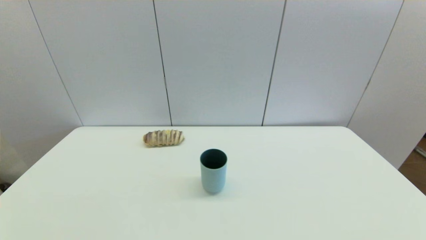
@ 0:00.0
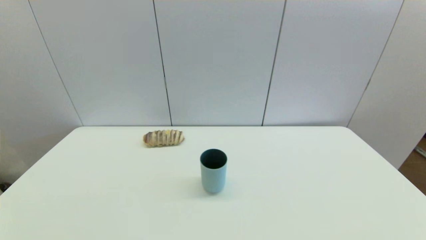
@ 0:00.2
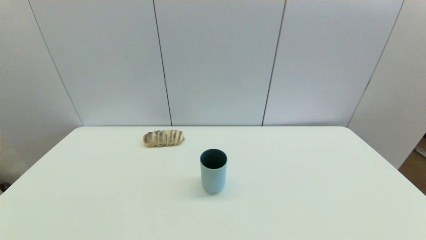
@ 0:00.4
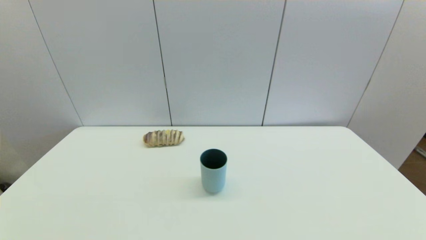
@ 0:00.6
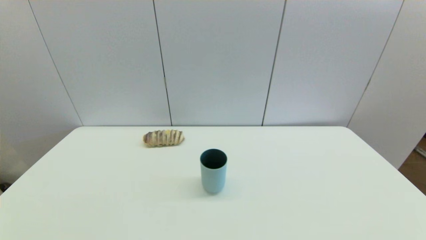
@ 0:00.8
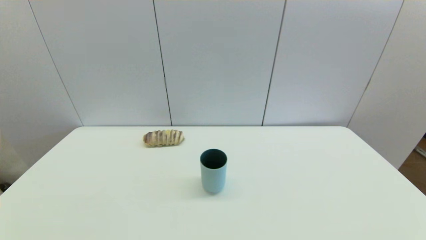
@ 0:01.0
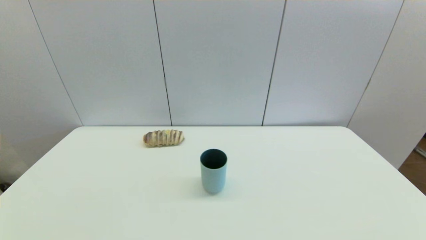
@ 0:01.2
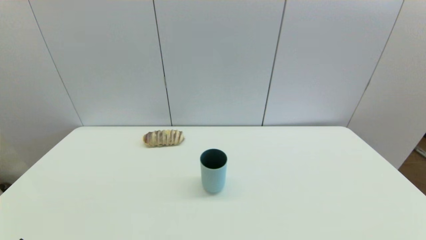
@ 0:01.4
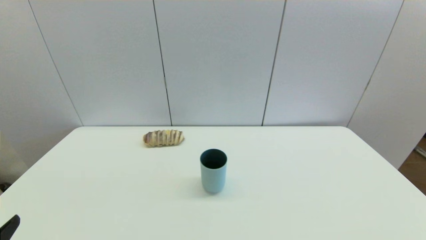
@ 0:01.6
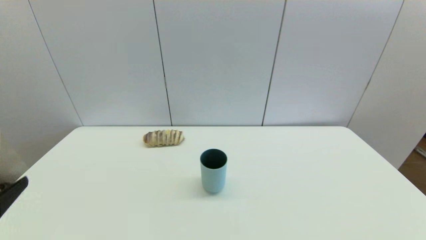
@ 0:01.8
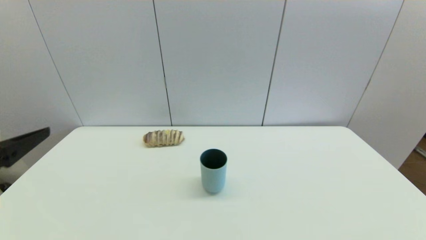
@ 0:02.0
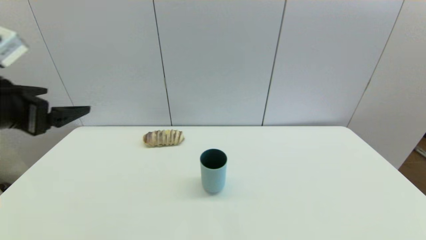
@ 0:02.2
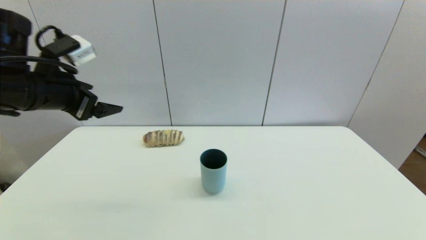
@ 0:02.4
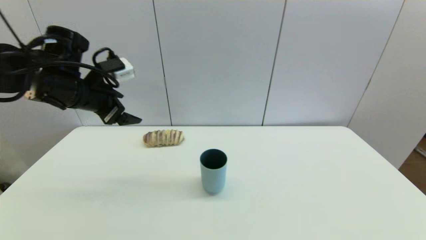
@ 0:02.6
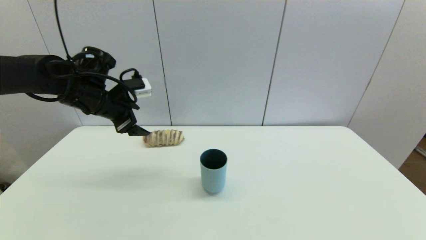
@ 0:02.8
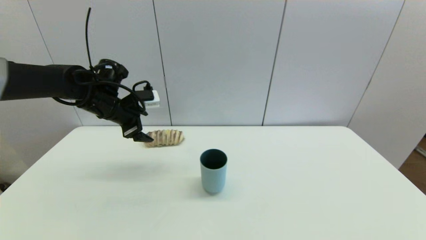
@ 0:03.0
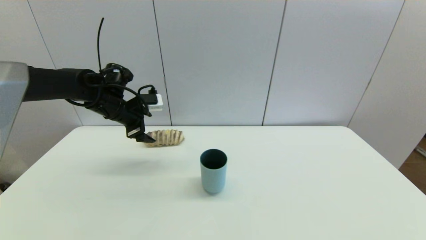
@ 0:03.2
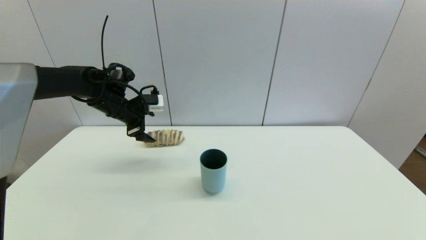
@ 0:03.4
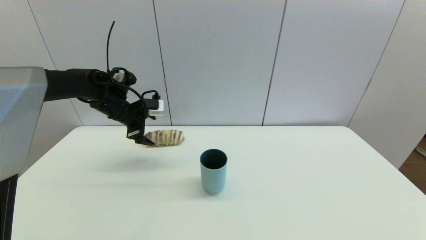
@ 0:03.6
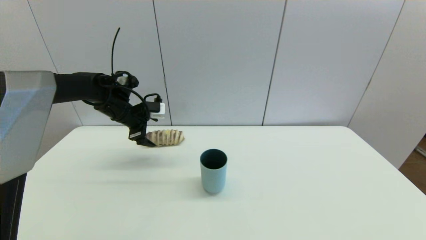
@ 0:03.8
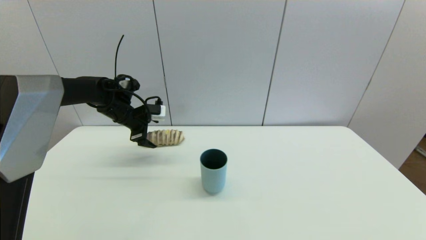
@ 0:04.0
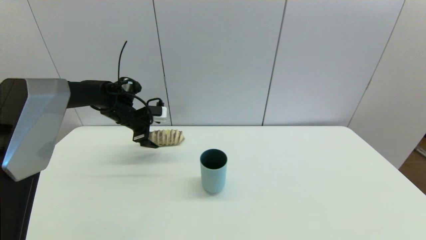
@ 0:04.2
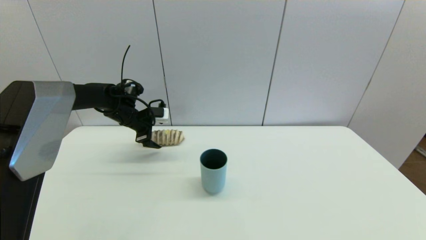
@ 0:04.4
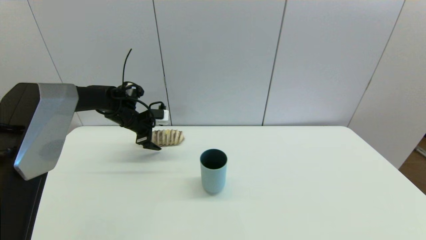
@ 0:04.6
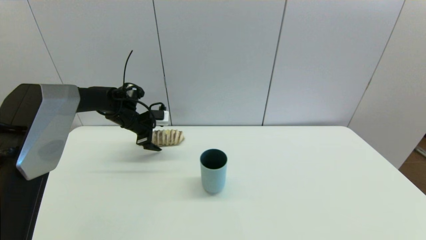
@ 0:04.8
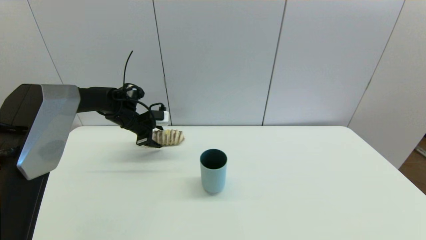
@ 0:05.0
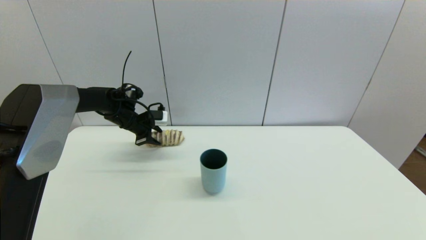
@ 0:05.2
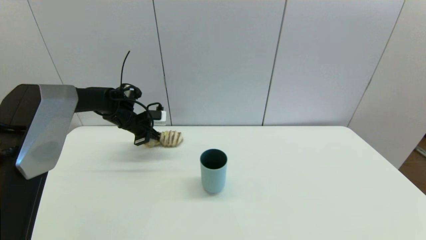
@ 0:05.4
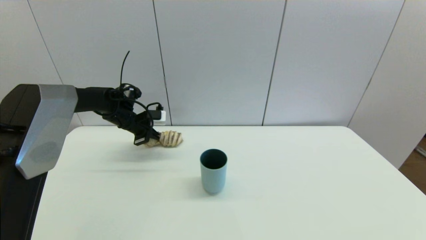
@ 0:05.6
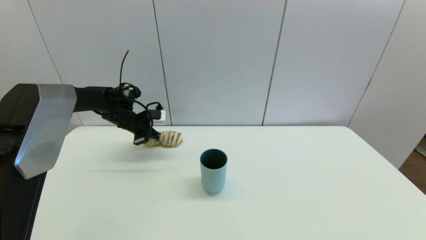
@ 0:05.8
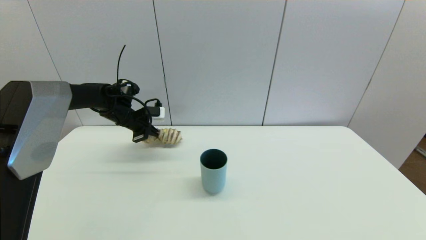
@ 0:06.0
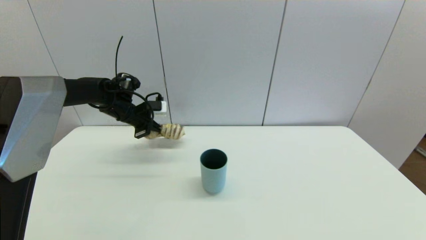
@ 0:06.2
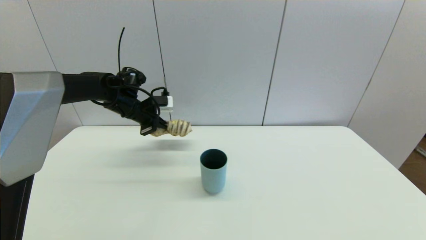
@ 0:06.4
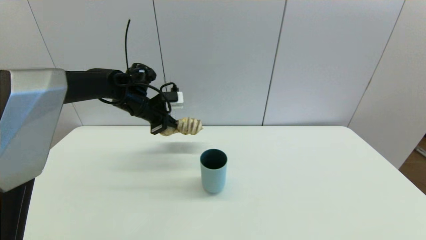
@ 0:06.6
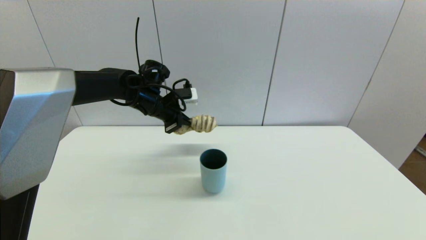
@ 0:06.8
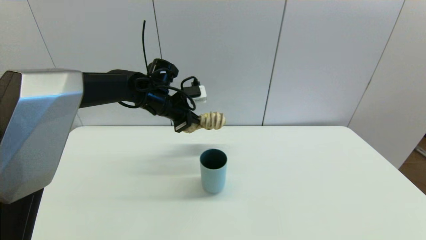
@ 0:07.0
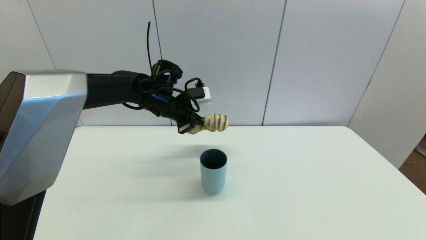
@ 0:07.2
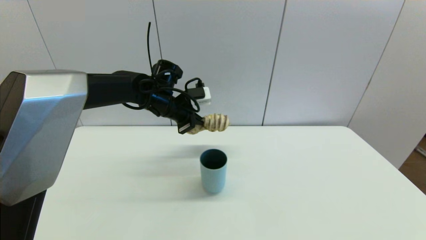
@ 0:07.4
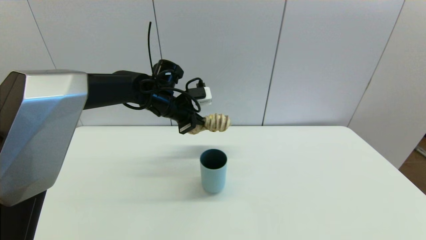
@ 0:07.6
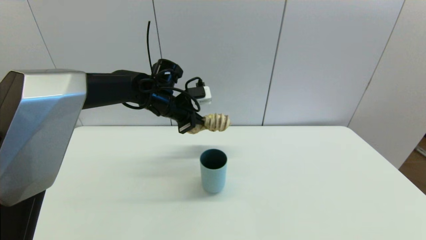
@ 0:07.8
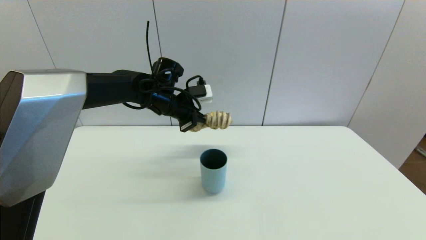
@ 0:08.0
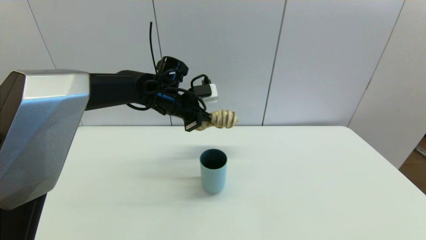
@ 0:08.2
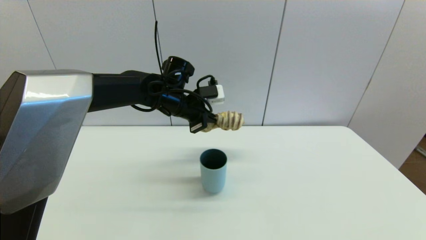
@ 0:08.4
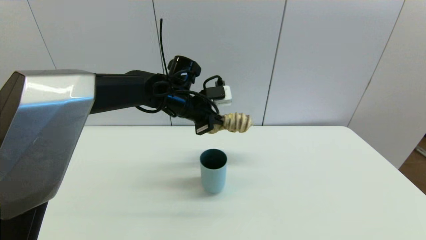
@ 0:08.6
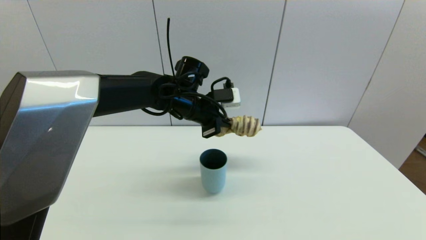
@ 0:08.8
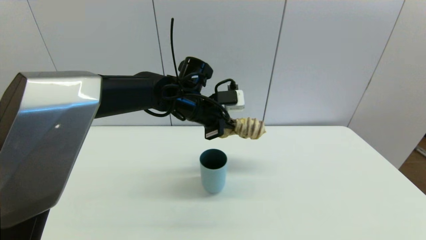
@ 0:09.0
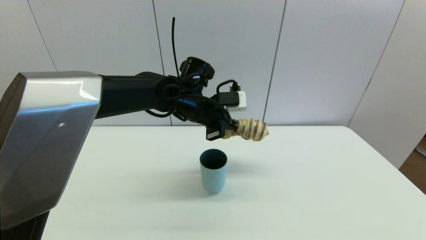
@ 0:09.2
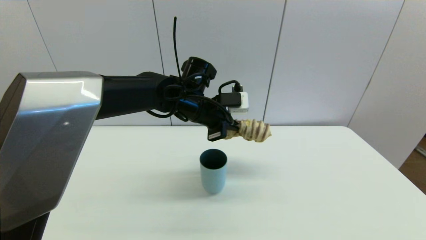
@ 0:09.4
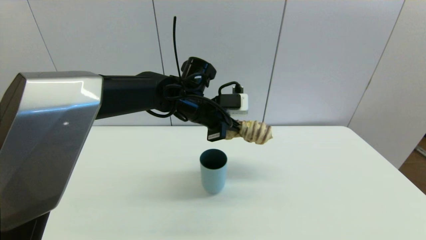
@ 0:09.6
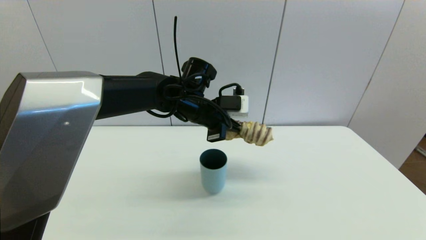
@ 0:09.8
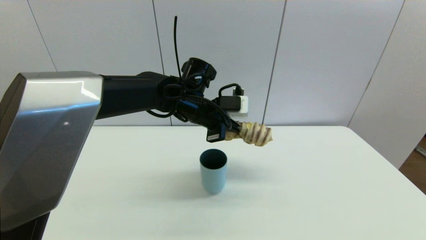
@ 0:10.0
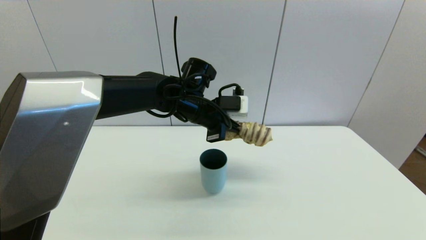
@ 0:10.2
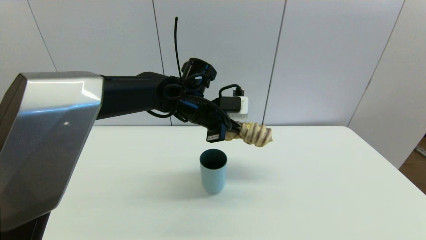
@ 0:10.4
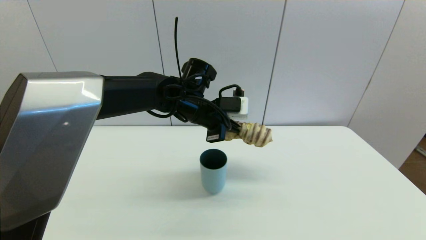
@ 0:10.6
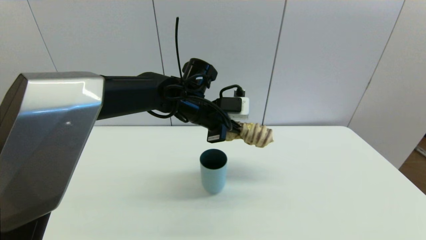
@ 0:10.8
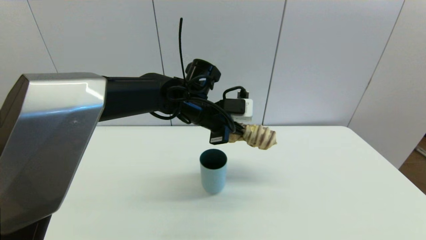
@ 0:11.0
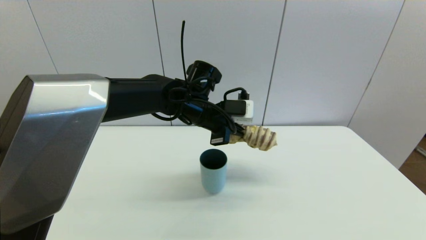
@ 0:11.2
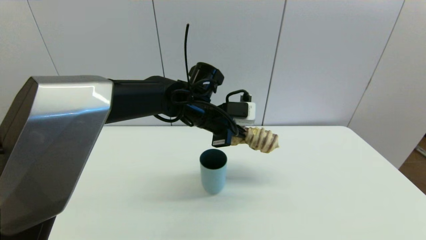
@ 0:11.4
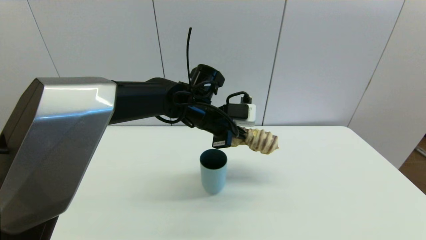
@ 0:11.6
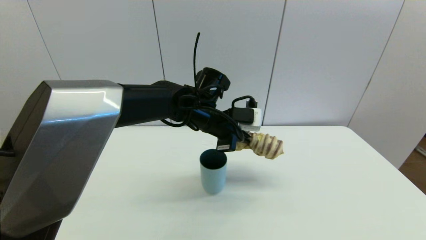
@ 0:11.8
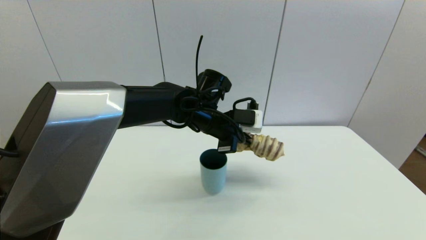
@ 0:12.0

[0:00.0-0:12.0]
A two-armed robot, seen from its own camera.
Step, 0:01.4 to 0:05.8: Grasp the long bread with left gripper.
0:01.6 to 0:03.0: The left gripper heads forward, covering some 40 cm.
0:03.0 to 0:04.4: The left gripper heads forward and downward, covering about 10 cm.
0:04.4 to 0:06.0: The left gripper closes.
0:06.0 to 0:07.6: The left gripper moves to the right and upward, roughly 15 cm.
0:07.6 to 0:09.0: The left gripper is displaced to the right by some 5 cm.
0:09.0 to 0:12.0: The grippers move only a little.

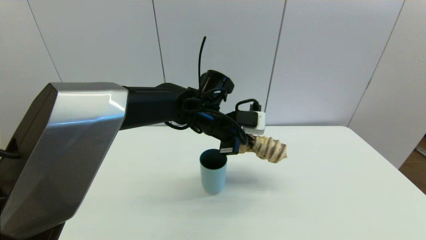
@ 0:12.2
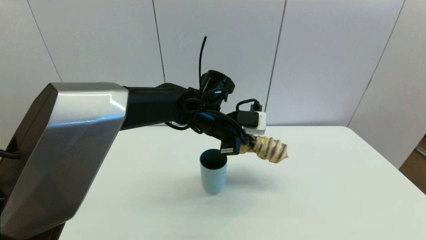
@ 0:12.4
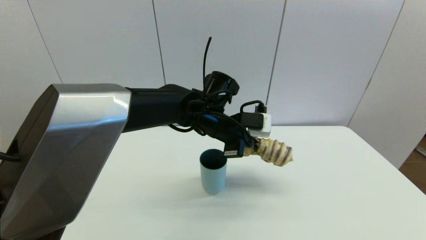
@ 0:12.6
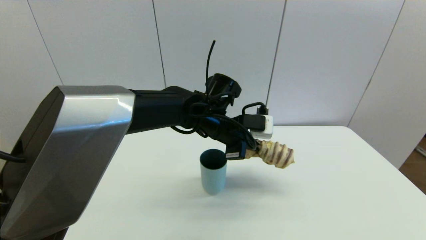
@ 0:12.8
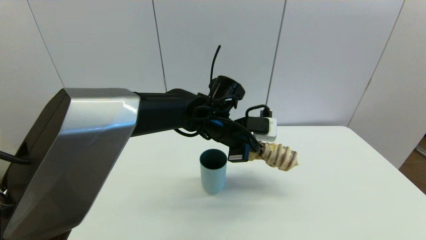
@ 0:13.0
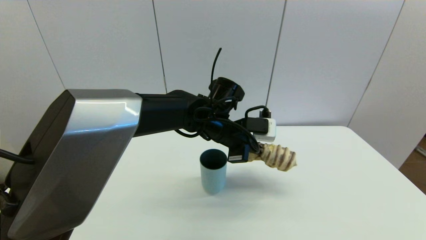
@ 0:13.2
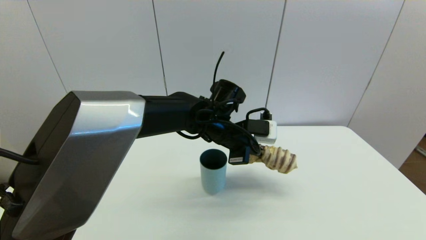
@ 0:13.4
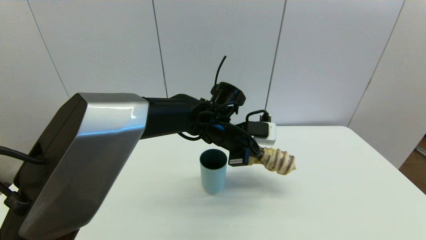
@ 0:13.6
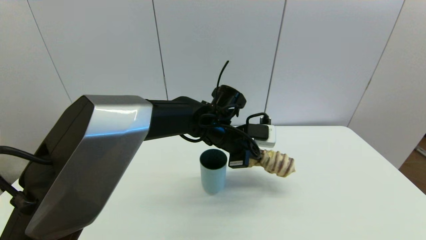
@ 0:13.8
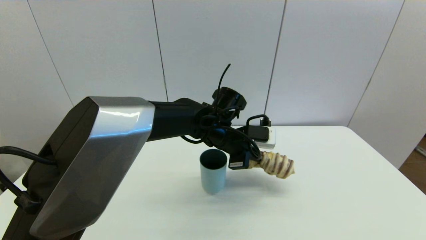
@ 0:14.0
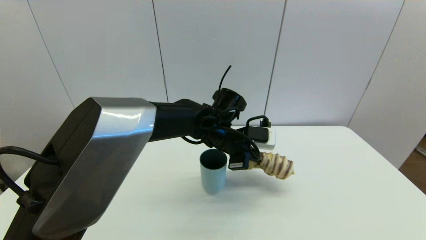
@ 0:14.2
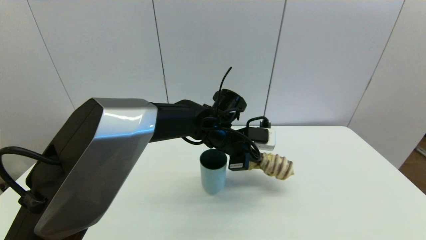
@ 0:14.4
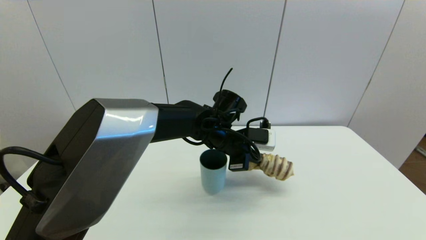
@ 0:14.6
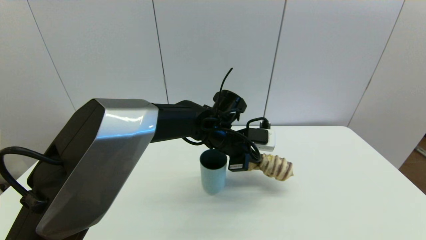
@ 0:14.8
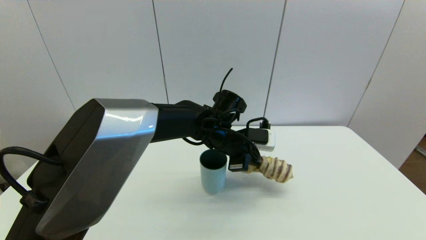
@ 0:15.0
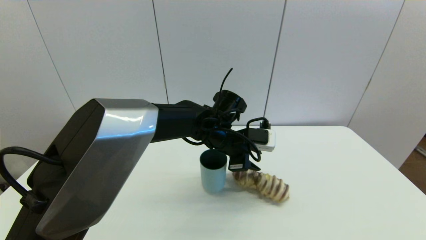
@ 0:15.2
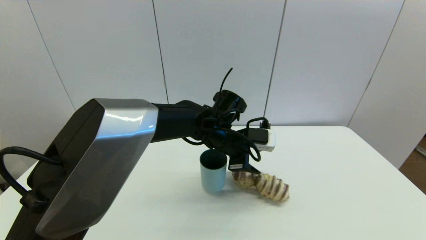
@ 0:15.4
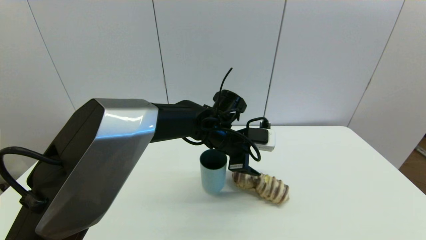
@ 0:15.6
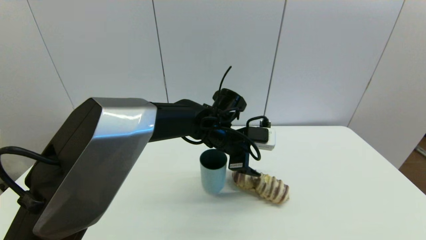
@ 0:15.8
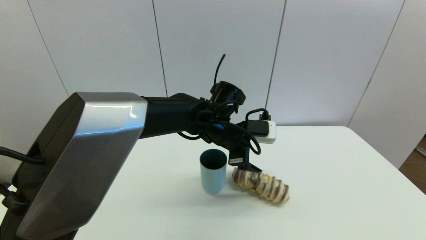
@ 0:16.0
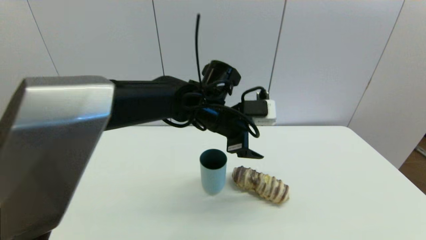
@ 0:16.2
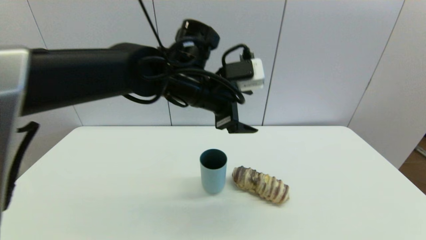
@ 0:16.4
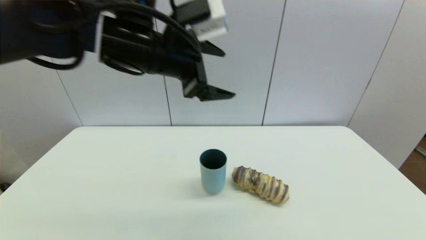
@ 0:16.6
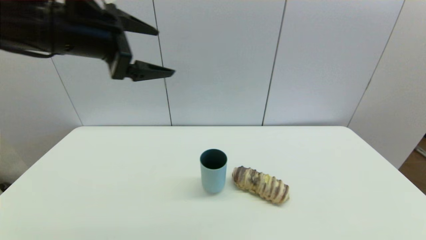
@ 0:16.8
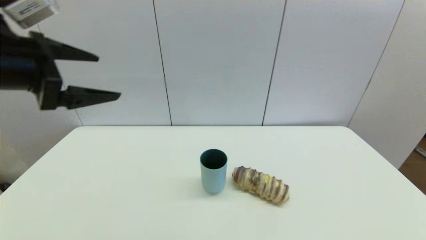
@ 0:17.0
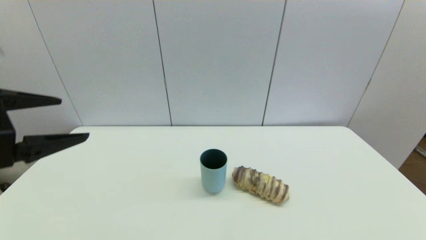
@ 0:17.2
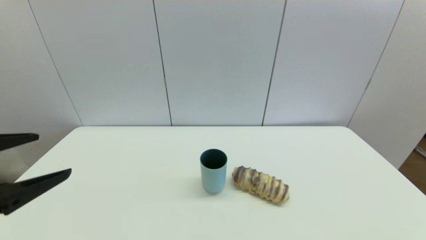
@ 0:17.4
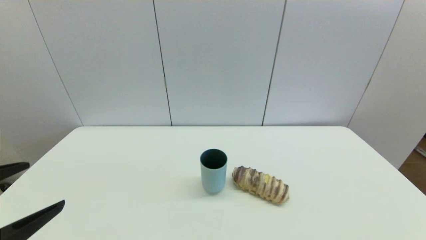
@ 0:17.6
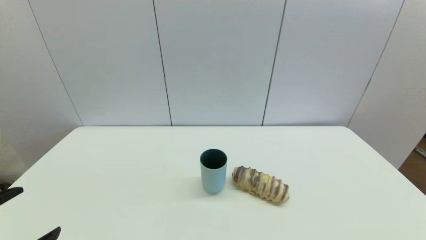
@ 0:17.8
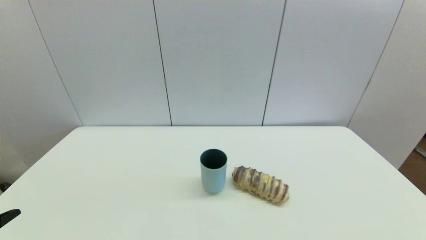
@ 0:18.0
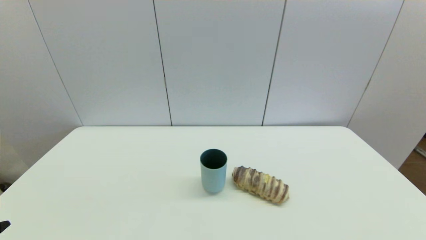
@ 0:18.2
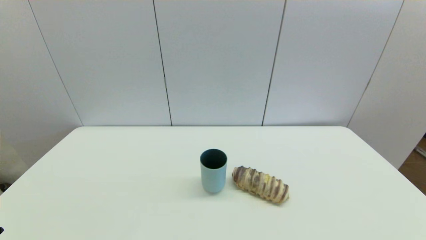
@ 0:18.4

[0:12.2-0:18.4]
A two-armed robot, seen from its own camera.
Step, 0:12.2 to 0:15.2: Place the long bread on the table with left gripper.
0:13.8 to 0:15.4: The left gripper opens.
0:15.4 to 0:16.8: The left gripper travels upward and to the left by roughly 30 cm, and opens.
0:16.8 to 0:18.4: The left gripper heads backward, downward and to the left, covering roughly 40 cm.
